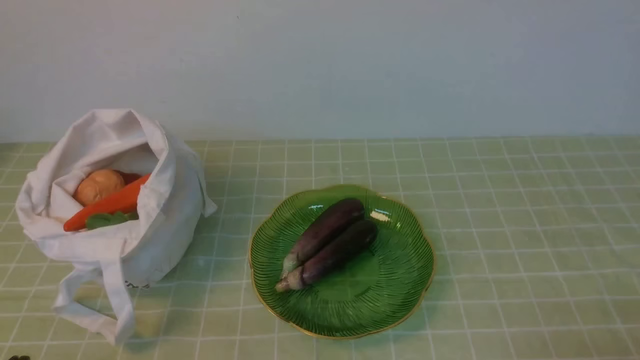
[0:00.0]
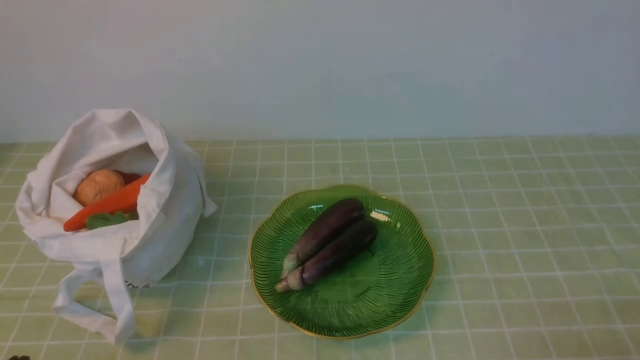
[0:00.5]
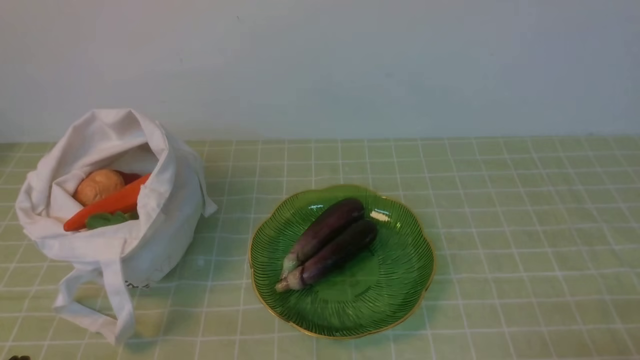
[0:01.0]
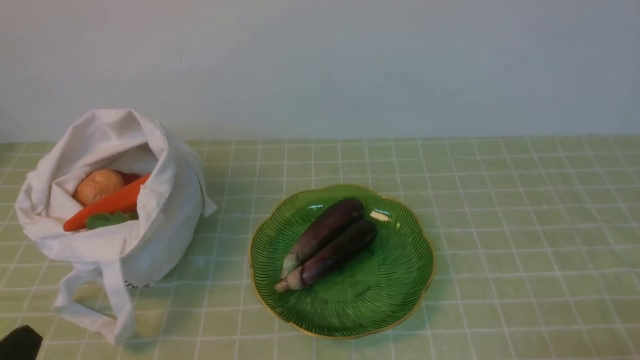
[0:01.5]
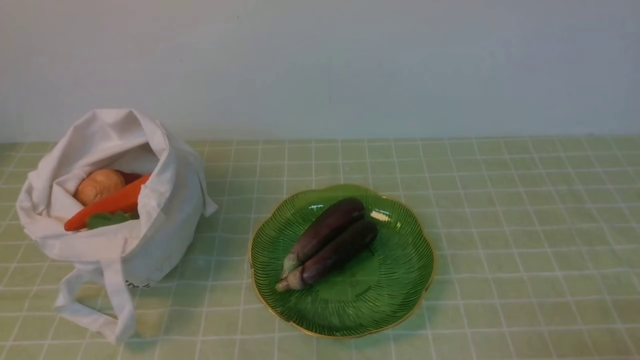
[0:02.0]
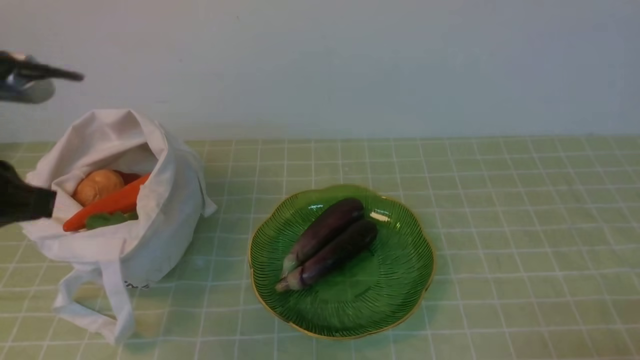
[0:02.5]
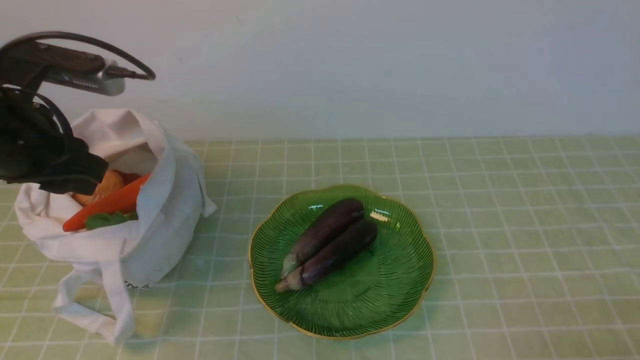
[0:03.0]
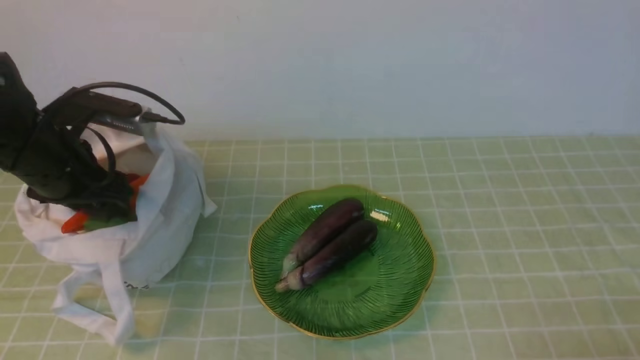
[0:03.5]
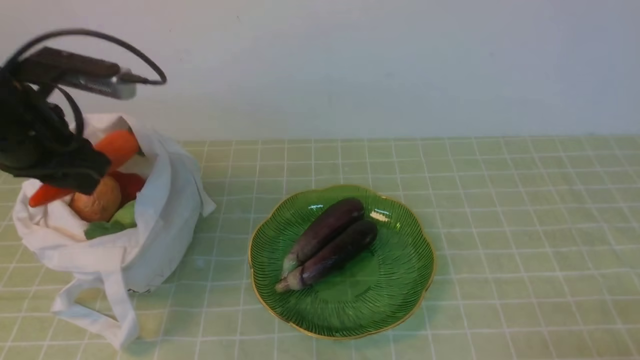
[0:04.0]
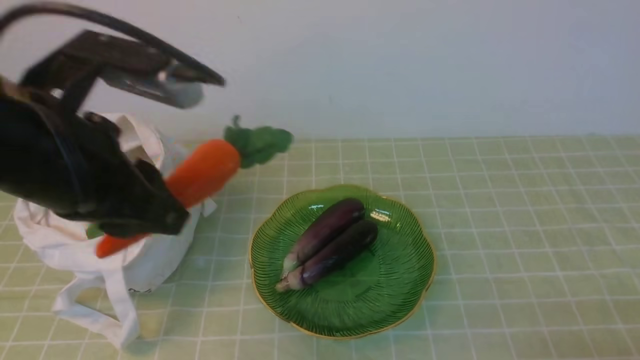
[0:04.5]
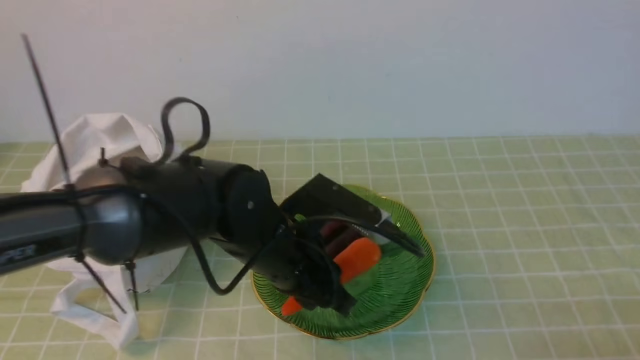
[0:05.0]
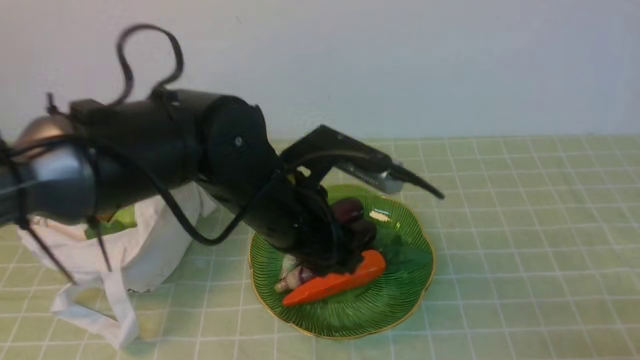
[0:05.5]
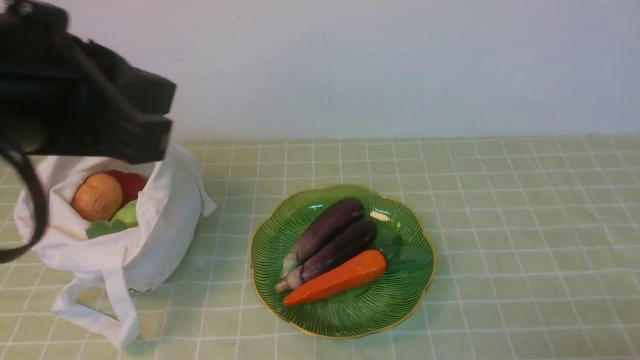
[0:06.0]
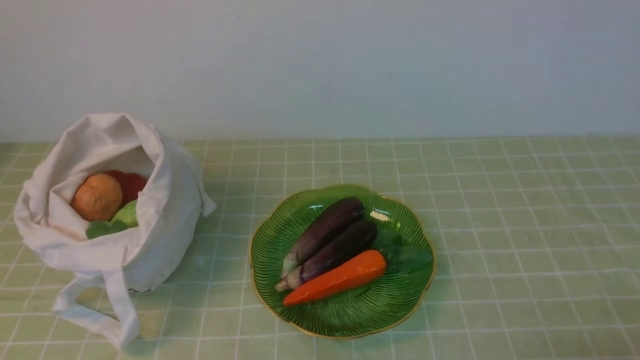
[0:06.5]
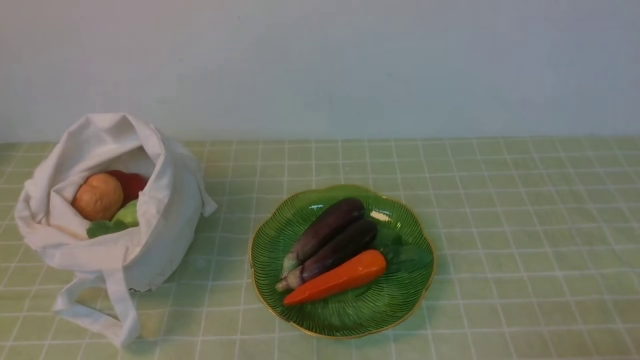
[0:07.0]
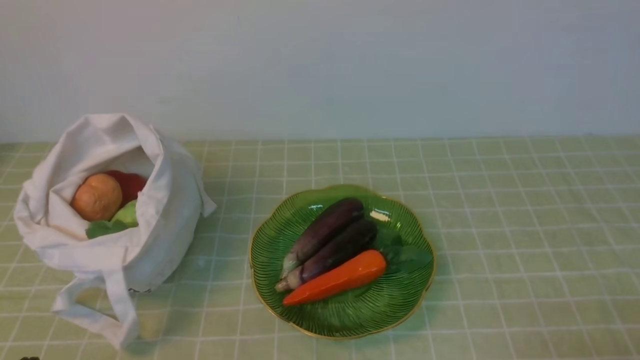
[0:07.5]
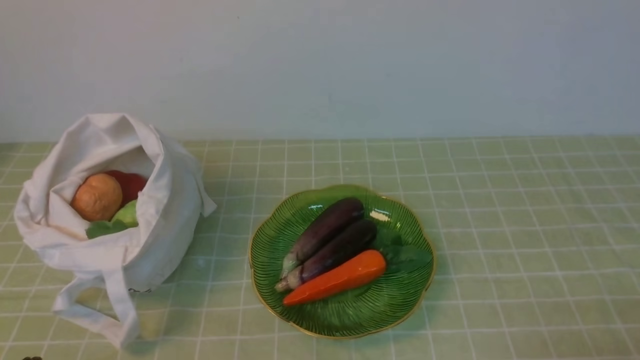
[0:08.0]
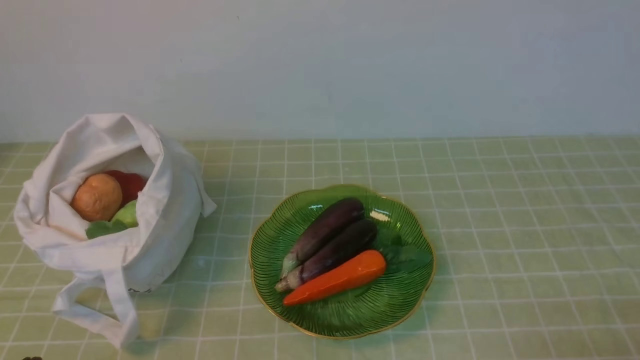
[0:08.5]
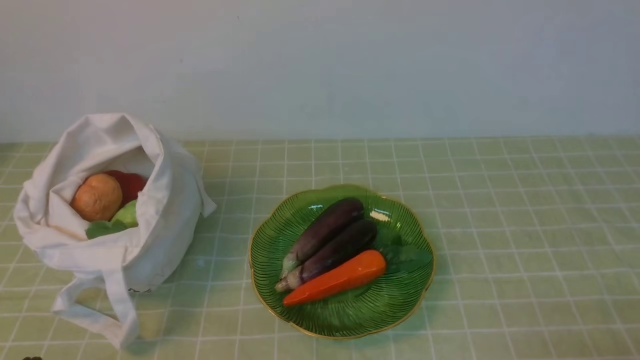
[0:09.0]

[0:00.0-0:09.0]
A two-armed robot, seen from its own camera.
Task of the whole recording: take vegetables from bag on green coffee tablecloth place on plate.
Step, 0:00.0 to 0:03.5: Grasp the carrot with left gripper.
Step, 0:04.0 to 0:05.5: Place the carrot on the plate with left gripper.
0:02.0 to 0:04.5: The left gripper moves forward and to the right, some 20 cm, and opens up.
0:04.5 to 0:07.0: The left gripper moves up and down over approximately 25 cm, changing direction 2 times, and closes.
